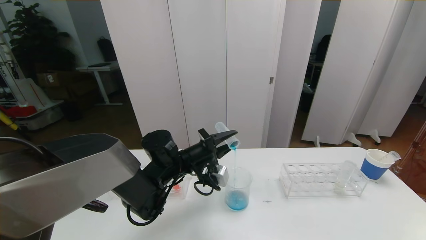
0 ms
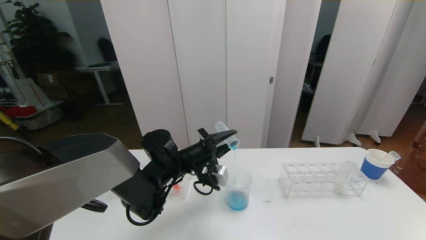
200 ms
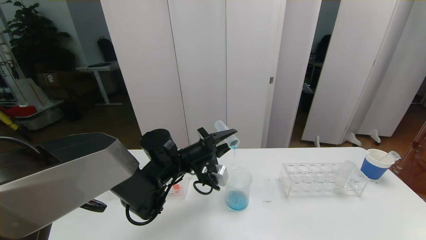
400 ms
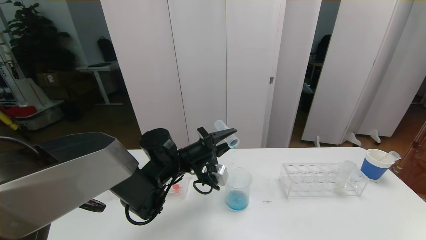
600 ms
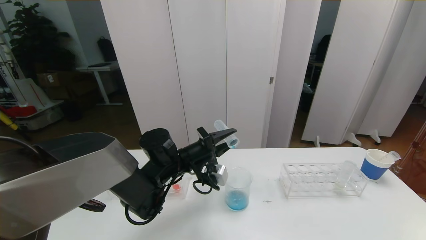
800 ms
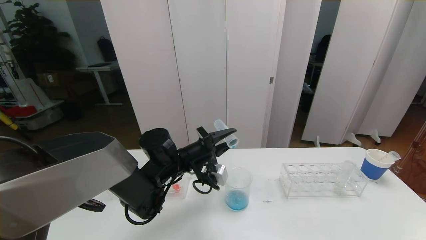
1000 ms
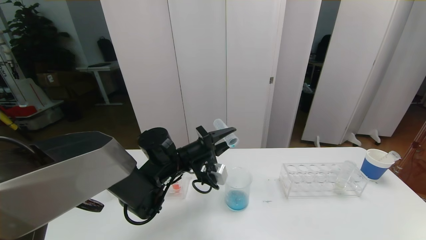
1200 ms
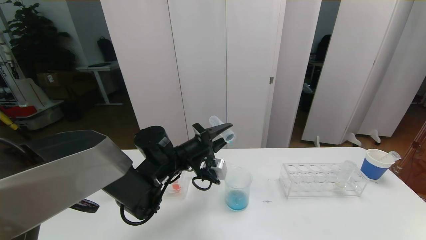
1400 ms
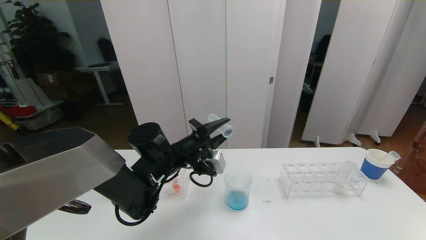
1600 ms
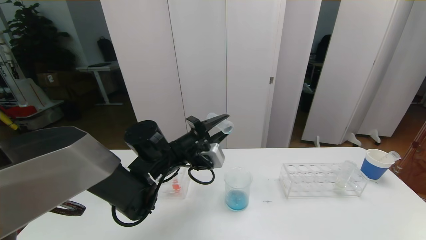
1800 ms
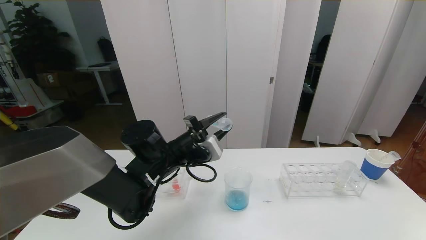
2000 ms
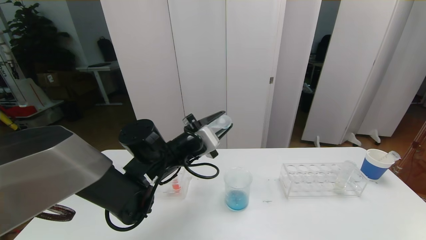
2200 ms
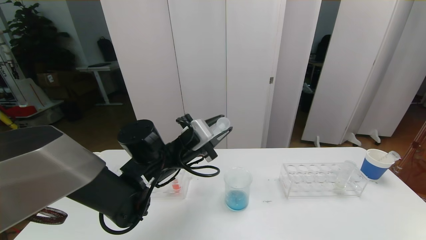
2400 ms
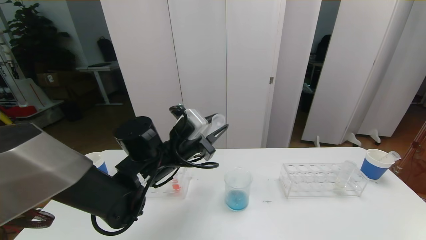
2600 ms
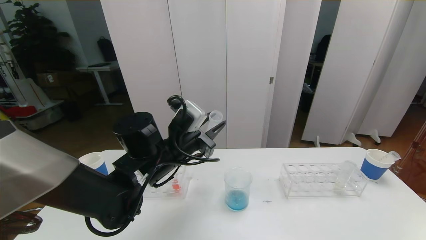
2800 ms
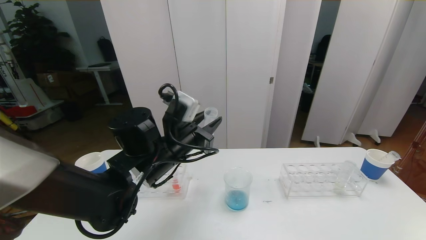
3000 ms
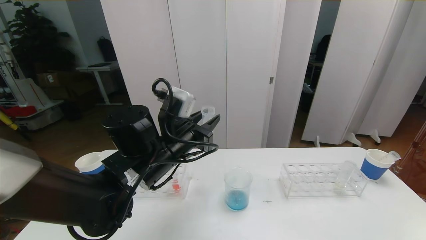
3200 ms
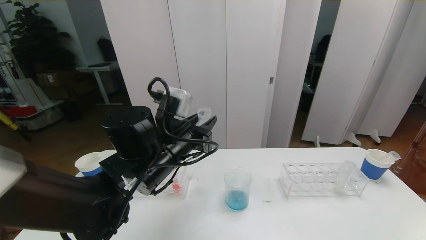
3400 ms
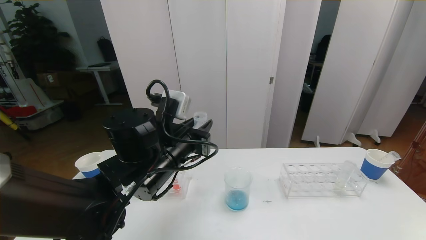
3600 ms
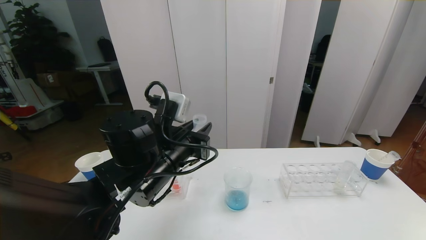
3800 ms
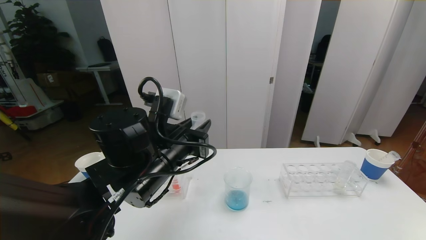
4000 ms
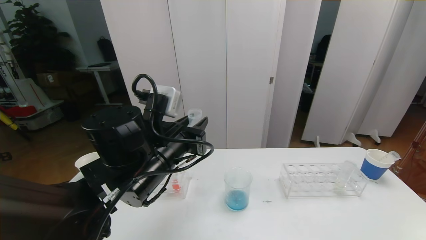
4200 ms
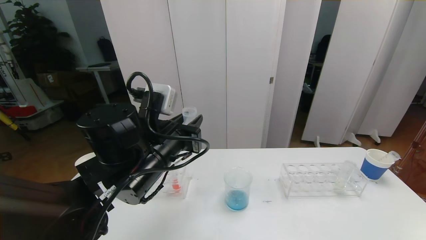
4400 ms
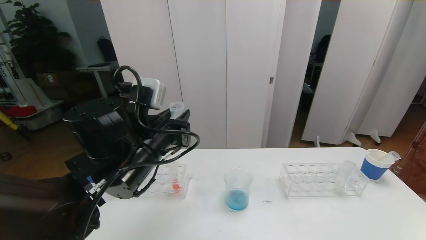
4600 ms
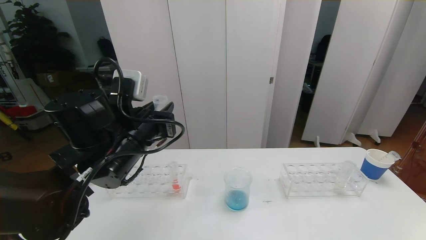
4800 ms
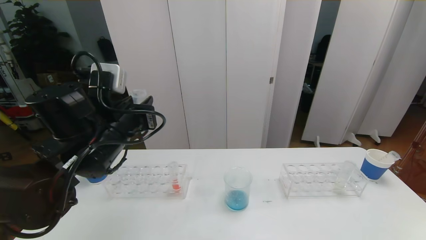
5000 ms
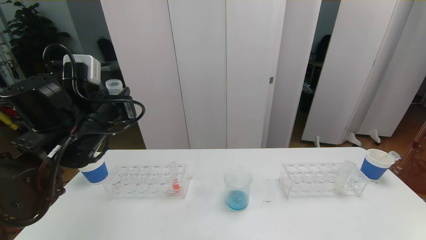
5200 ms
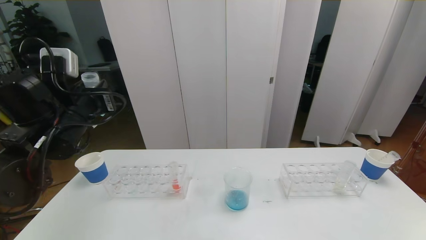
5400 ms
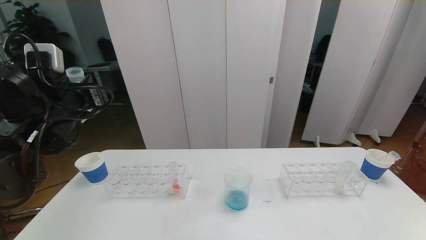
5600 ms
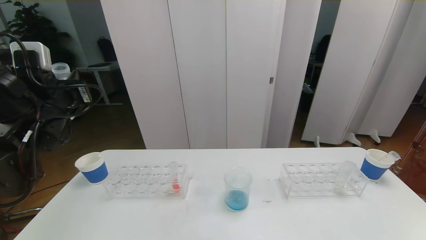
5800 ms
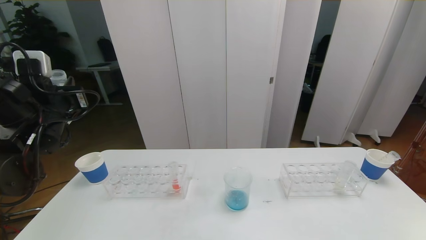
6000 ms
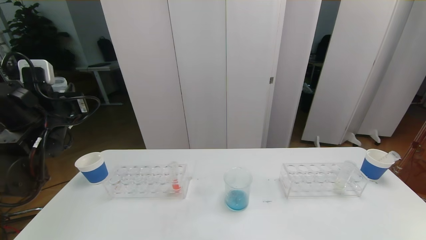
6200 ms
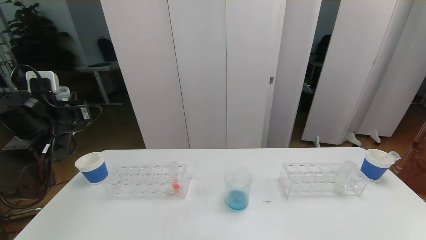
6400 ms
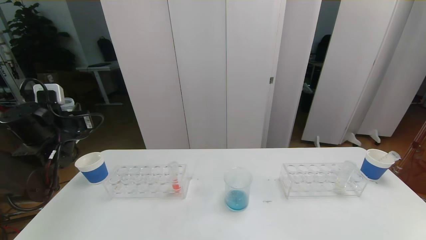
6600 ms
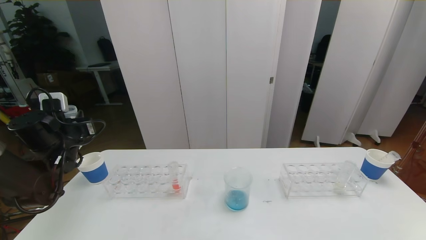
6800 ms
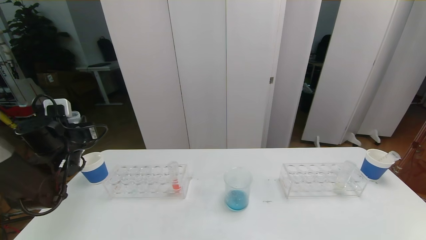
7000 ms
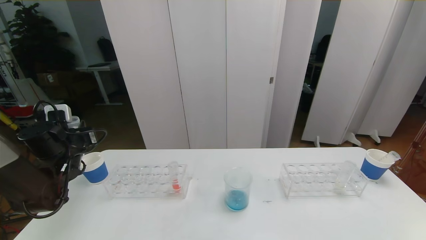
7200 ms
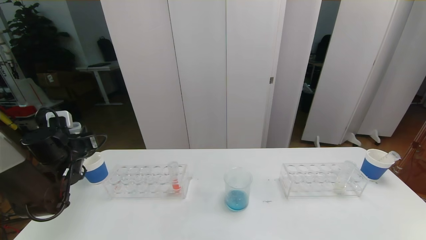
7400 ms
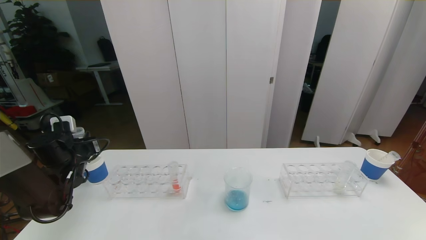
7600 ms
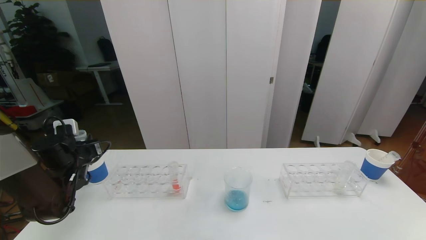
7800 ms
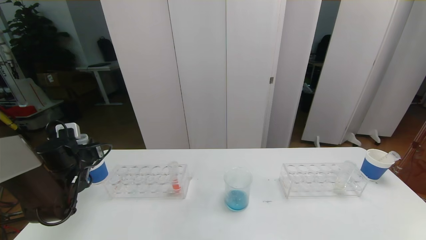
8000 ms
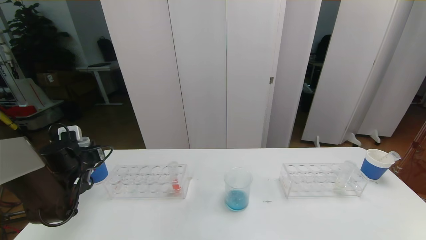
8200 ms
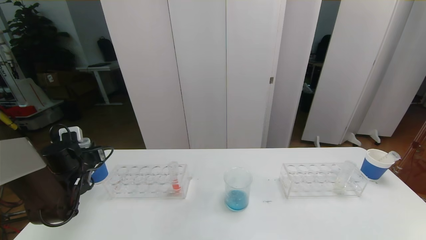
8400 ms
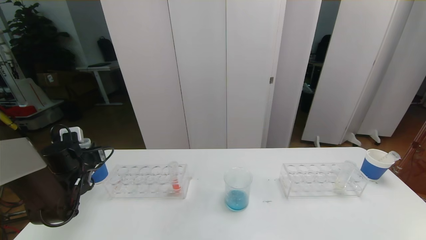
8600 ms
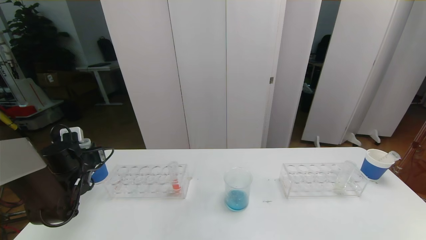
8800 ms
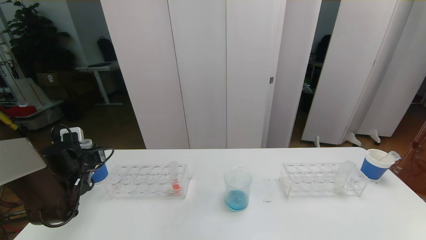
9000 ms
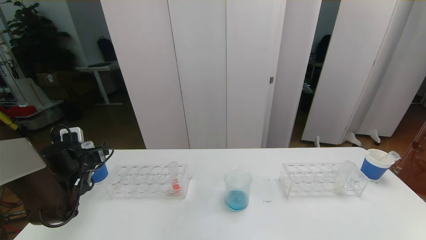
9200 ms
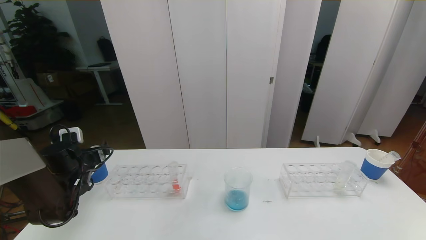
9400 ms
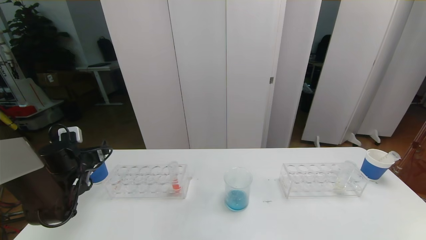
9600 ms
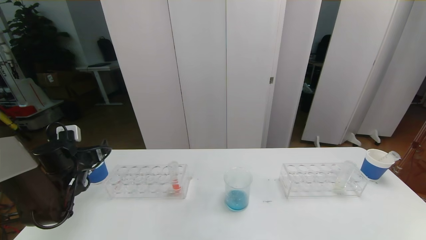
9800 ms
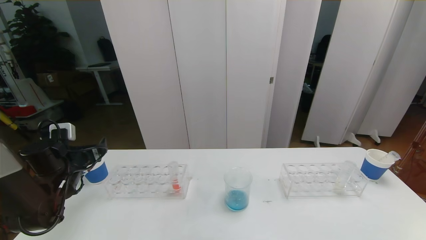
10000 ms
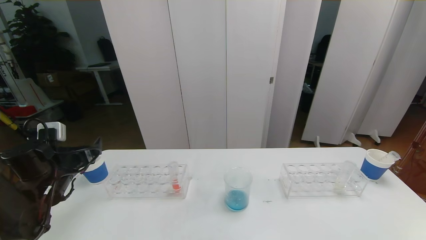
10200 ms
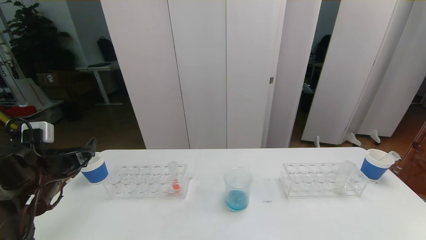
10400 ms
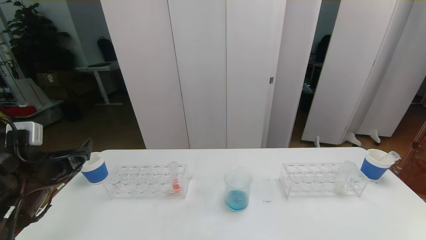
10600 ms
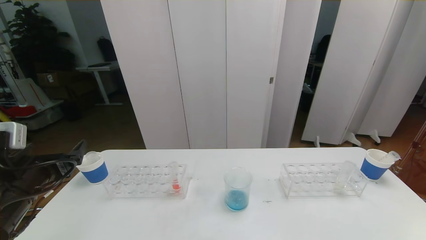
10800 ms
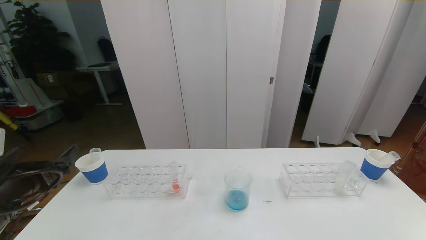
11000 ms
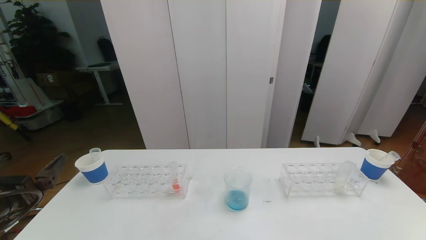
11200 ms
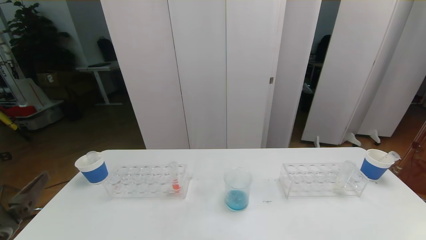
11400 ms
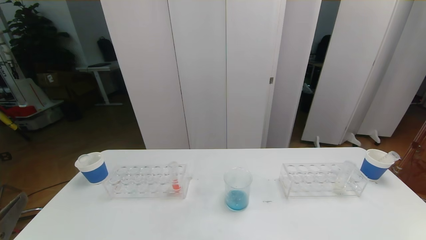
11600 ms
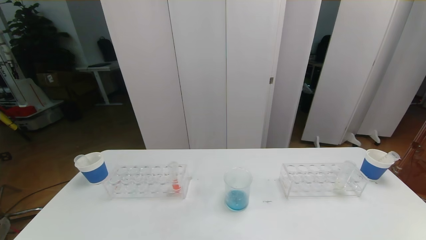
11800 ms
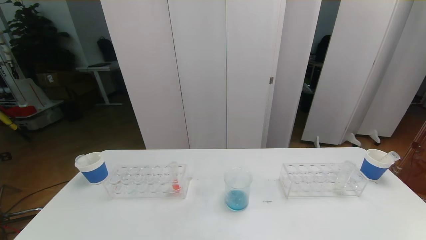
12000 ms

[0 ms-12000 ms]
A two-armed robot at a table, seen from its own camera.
Task of the whole recording: pick up the test tube with red pigment the test tube with blue pigment and the test tube with white pigment by grippers and pour them into the beaker.
Step, 2000 ms to 9800 ms: Place the test tube into the paper cup with the left gripper.
0 ms to 1600 ms: The grippers move only a little.
1600 ms to 3000 ms: The left gripper changes place by about 5 cm.
4400 ms to 6000 ms: The left gripper travels to the left by some 20 cm.
6000 ms to 7600 ms: The left gripper goes some 15 cm downward.
7600 ms to 9000 ms: The grippers stay close to where they were, moving slightly.
9000 ms to 10400 ms: The left gripper moves backward and upward, approximately 10 cm, and opens.
10400 ms to 12000 ms: The left gripper shifts approximately 30 cm backward.

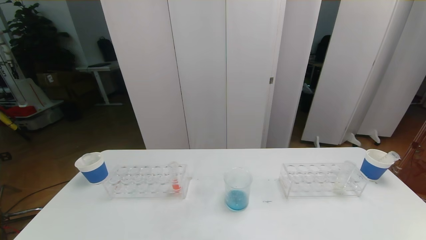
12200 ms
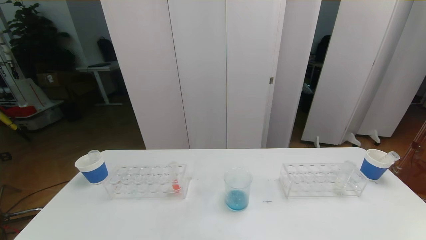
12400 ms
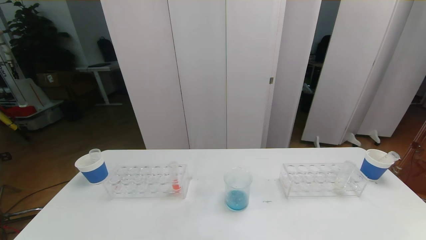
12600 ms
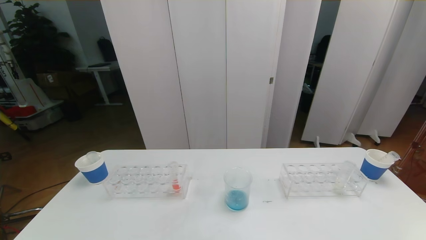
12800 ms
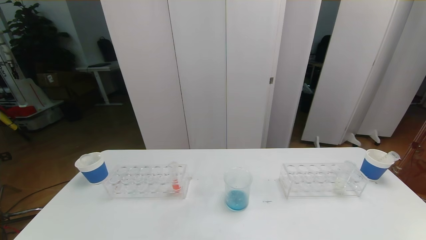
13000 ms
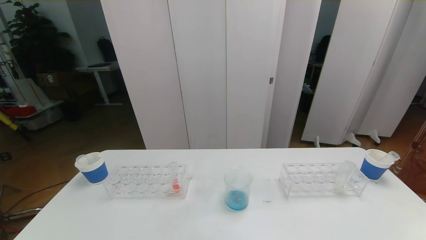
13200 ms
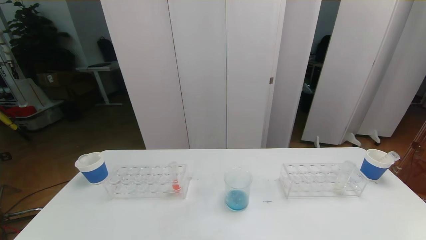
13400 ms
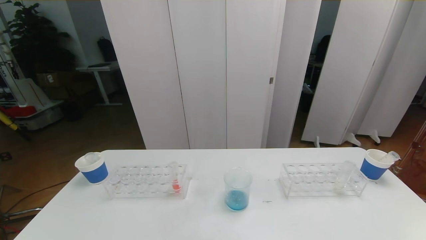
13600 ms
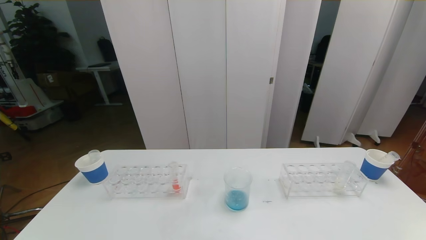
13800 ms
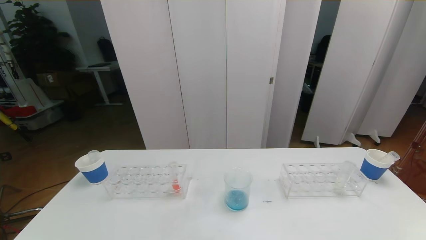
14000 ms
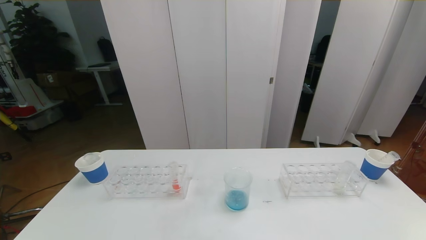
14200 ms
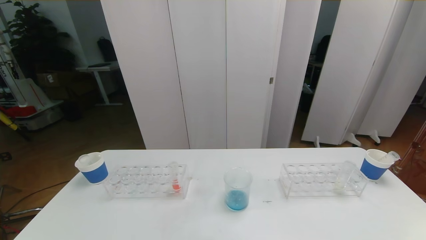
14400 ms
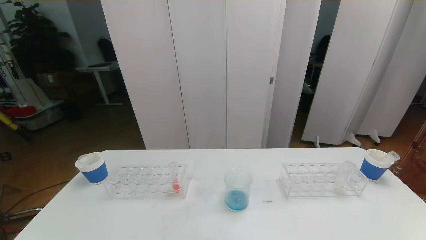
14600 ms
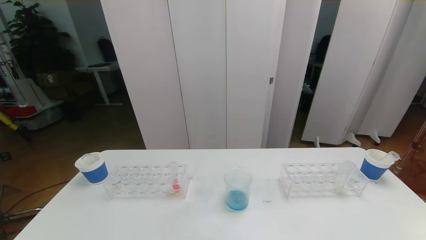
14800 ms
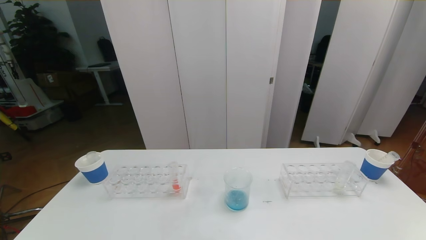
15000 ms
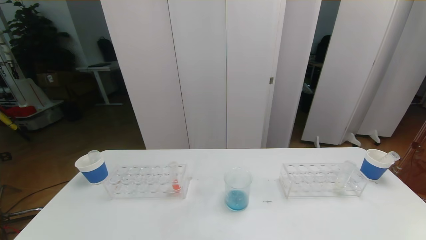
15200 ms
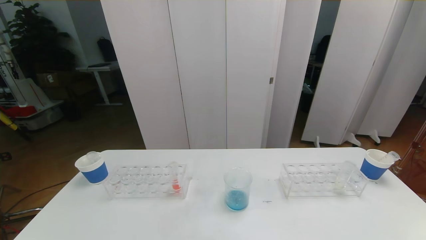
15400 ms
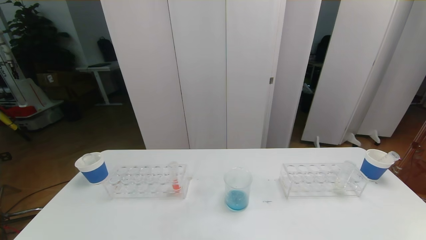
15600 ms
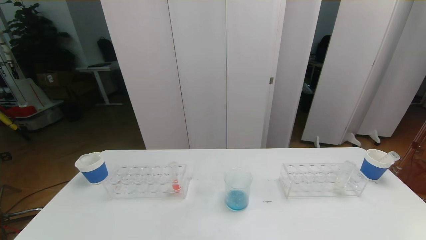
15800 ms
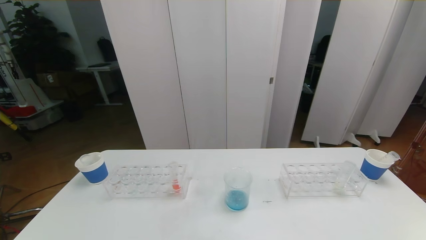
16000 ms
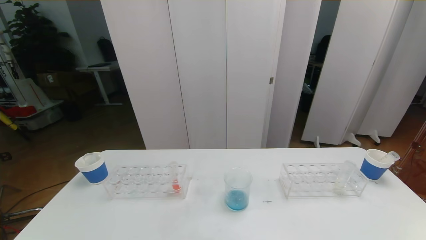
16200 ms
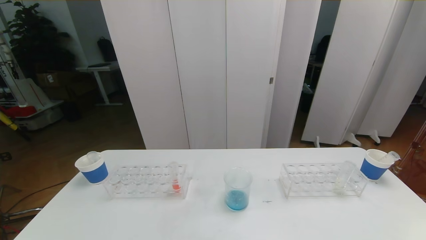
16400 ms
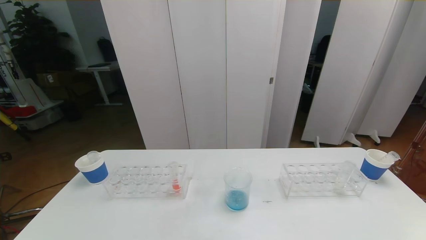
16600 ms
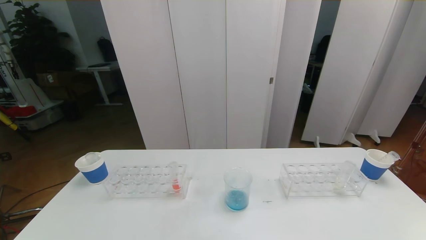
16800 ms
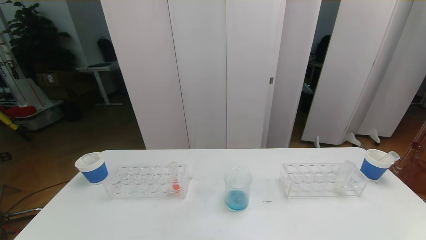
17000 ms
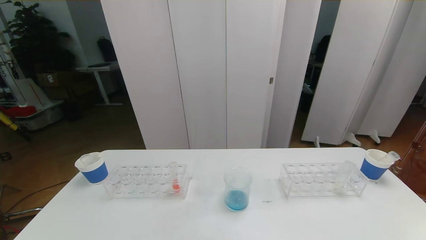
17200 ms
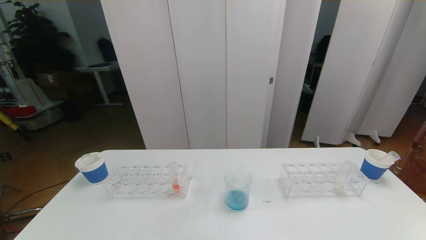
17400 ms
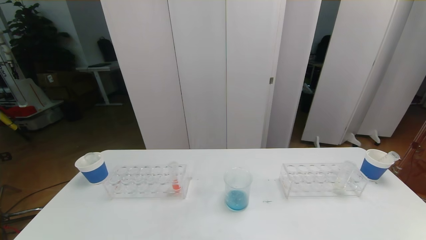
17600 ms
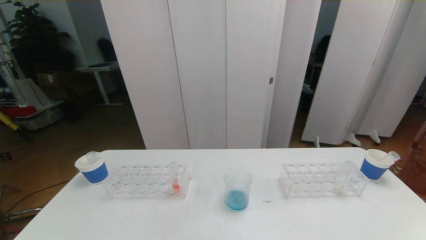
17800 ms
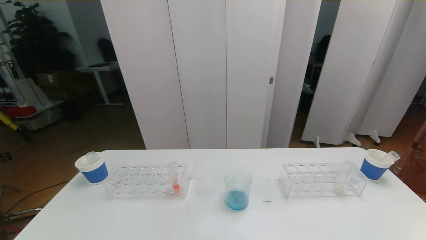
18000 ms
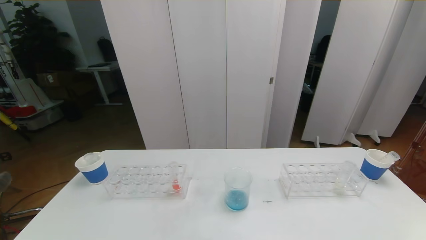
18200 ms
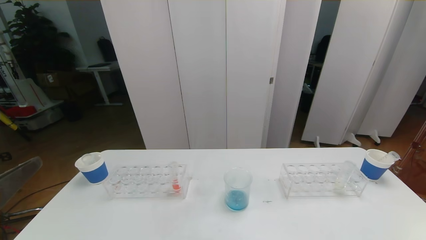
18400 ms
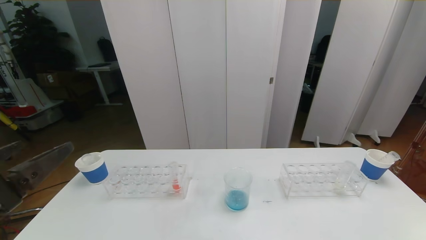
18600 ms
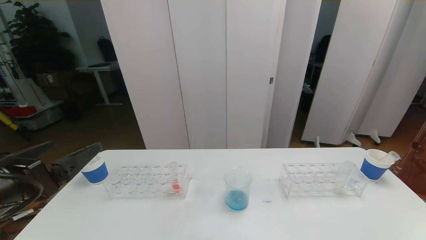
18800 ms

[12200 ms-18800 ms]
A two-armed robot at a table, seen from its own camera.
Task of the whole recording: pick up the test tube with red pigment the test tube with blue pigment and the test tube with white pigment by grippers and pour them into the beaker.
13800 ms to 15400 ms: Neither gripper changes place.
17200 ms to 18800 ms: The left gripper travels forward and upward by approximately 20 cm.
